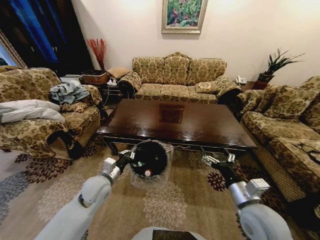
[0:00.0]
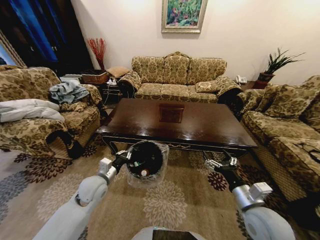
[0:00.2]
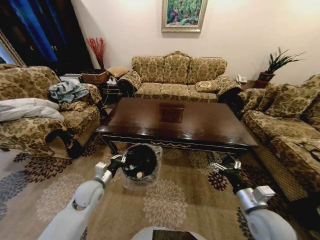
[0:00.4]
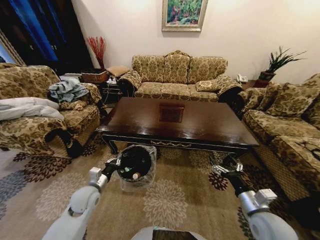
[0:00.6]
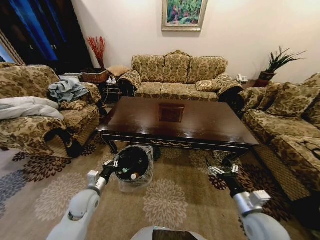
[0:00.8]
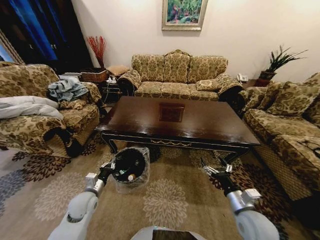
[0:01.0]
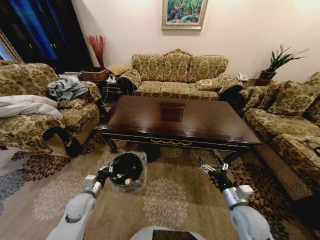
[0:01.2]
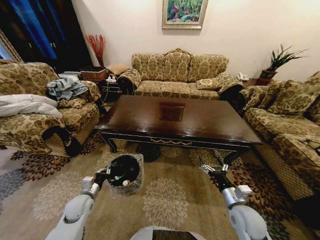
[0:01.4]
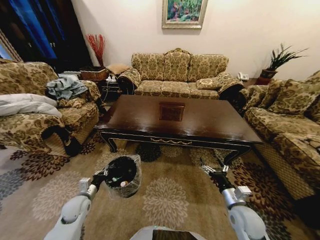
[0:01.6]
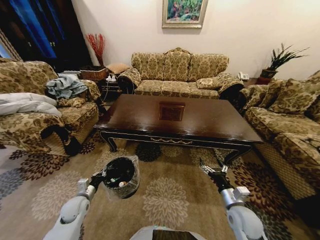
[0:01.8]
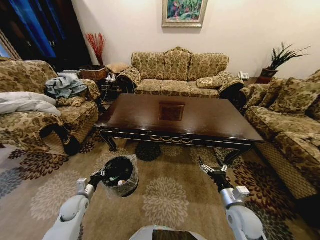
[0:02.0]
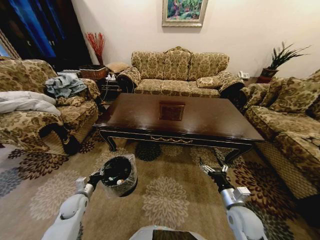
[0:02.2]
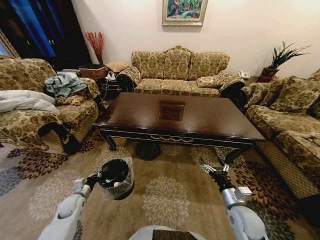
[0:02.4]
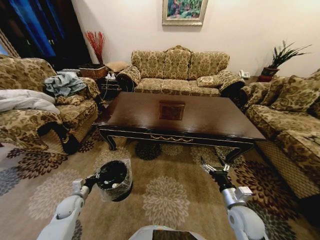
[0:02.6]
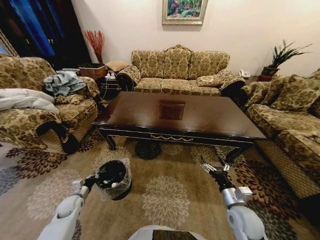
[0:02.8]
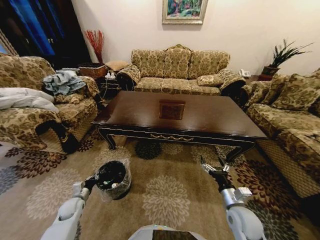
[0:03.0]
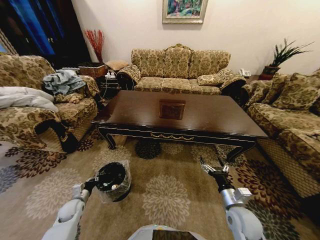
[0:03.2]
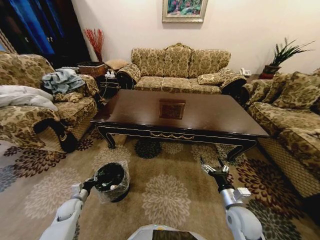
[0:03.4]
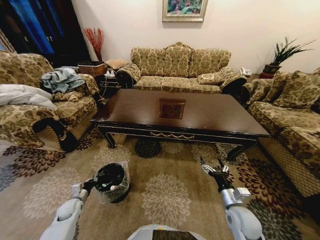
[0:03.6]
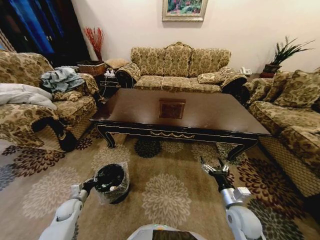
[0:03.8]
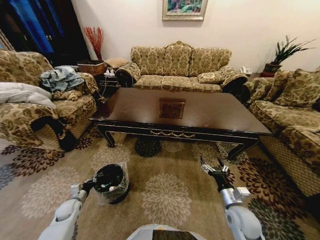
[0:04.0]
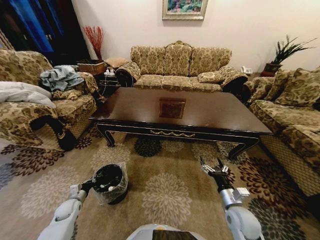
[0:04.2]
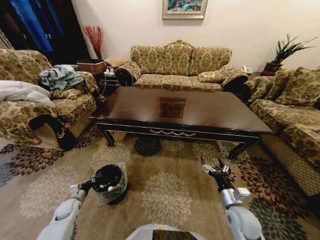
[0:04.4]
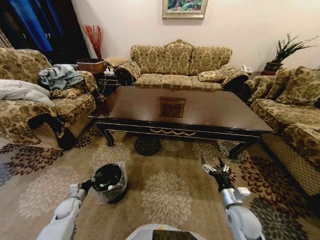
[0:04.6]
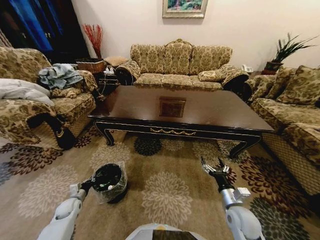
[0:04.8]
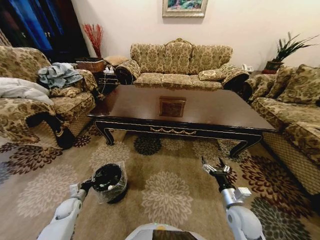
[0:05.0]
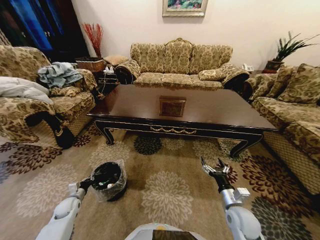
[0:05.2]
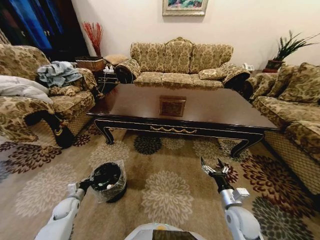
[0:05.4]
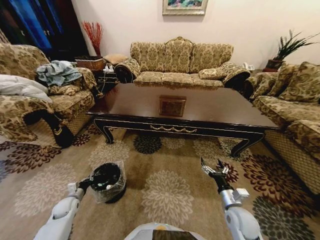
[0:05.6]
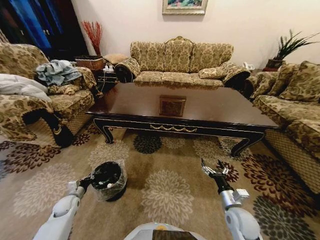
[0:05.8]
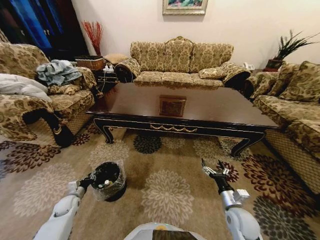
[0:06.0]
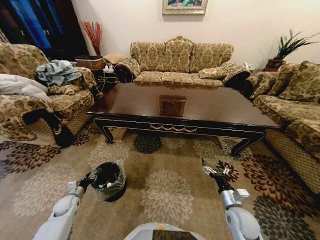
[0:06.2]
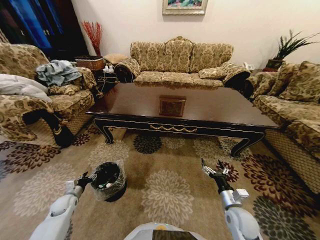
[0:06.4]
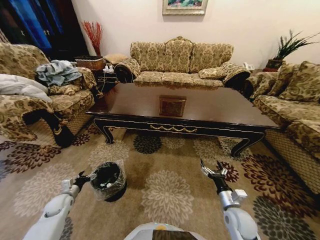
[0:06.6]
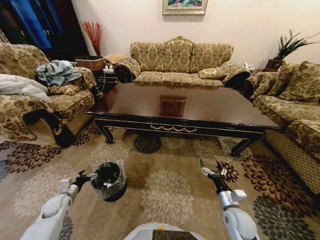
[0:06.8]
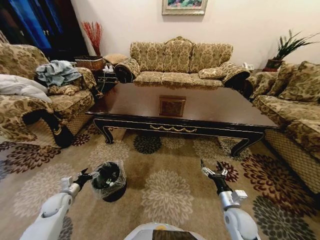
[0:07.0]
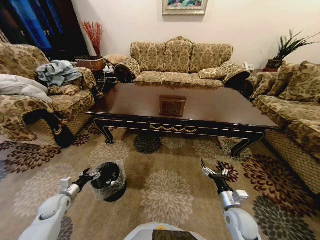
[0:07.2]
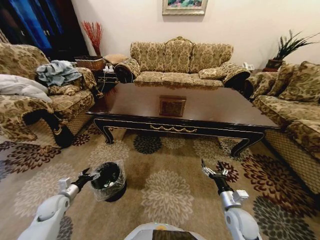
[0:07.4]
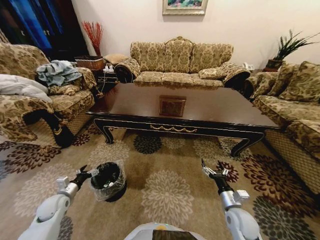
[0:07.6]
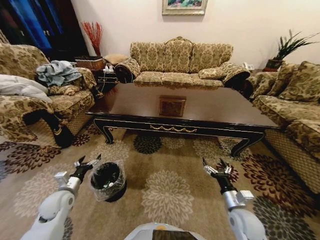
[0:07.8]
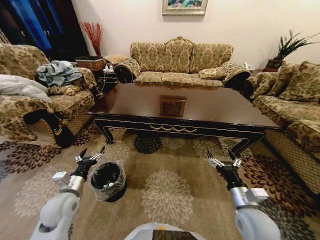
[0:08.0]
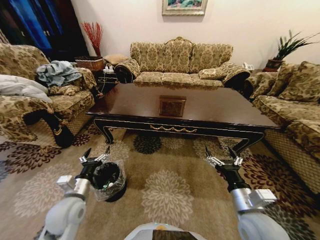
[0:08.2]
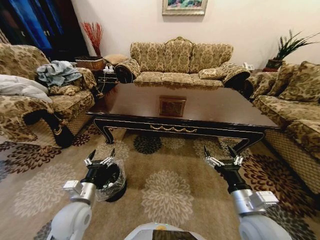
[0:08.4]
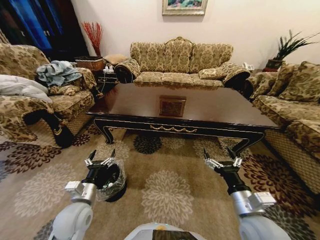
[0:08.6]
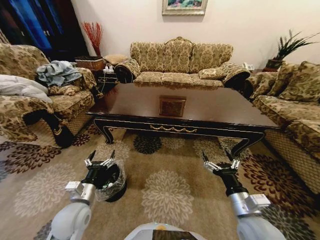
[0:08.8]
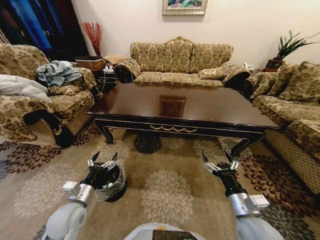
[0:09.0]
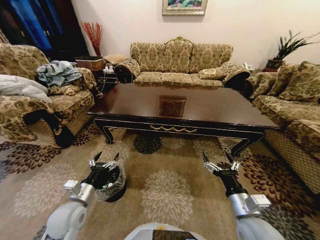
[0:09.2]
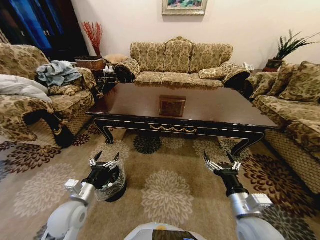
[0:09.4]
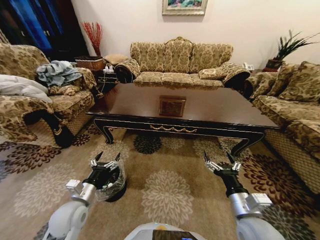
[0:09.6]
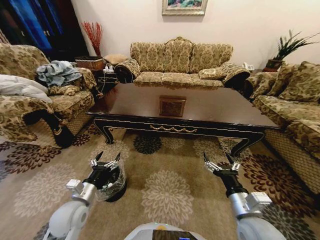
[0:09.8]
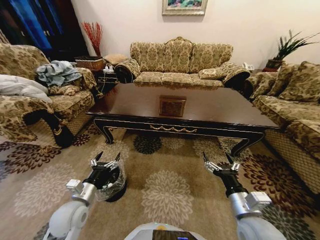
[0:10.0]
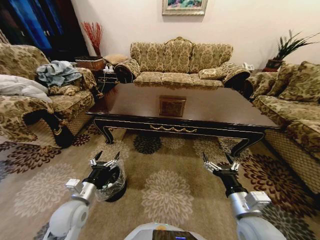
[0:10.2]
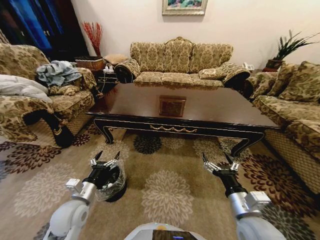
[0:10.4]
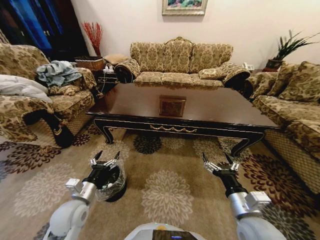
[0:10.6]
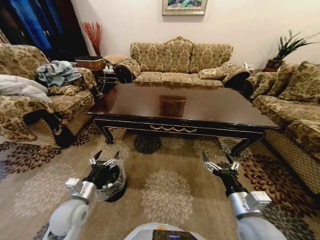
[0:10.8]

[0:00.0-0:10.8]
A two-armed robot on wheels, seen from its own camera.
Task of the whole recording: Move to the front of the table and place the trash on the table into the trash bin.
0:00.0 to 0:01.6: The left gripper shifts about 15 cm downward and to the left. The right gripper shifts some 10 cm downward.
0:01.6 to 0:03.0: The left gripper travels downward and to the left by roughly 10 cm.
0:04.6 to 0:06.2: The left gripper opens up.
0:06.2 to 0:07.8: The left gripper is displaced upward and to the right by some 15 cm, and opens up.
0:07.8 to 0:09.2: The right gripper is displaced upward by roughly 10 cm. The left gripper travels to the right by some 10 cm.
0:09.2 to 0:10.8: There are only small adjustments of the grippers.

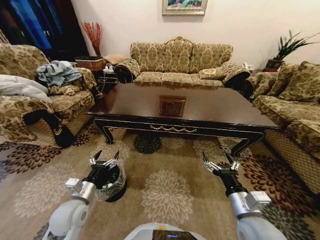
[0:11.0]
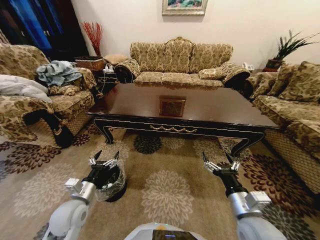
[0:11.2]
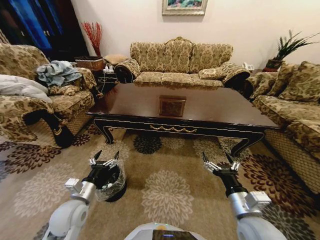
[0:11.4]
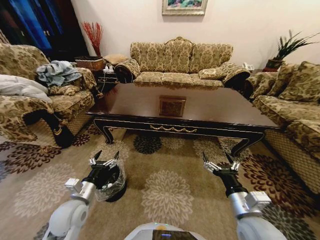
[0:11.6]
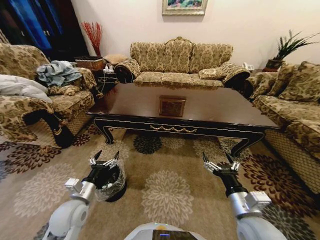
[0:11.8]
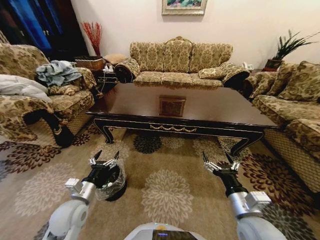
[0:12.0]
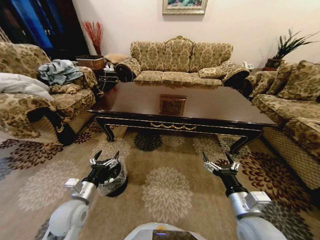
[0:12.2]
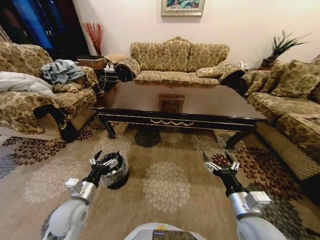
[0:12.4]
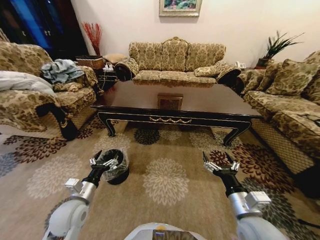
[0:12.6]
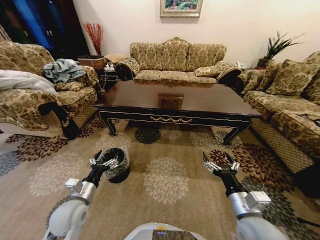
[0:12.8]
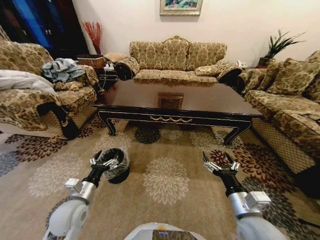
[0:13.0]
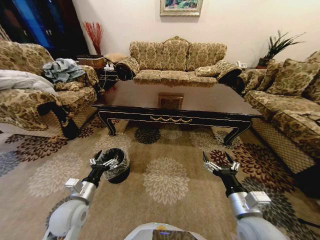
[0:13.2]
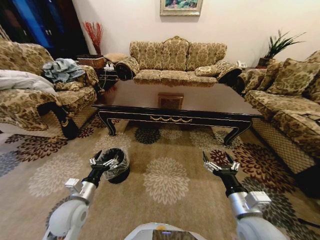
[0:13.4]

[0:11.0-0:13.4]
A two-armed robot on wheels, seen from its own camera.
Task of the whole recording: Move to the front of the table and place the trash on the table into the trash bin.
0:11.0 to 0:12.2: The two grippers keep their place.
